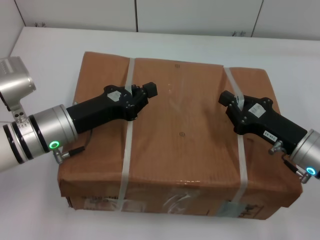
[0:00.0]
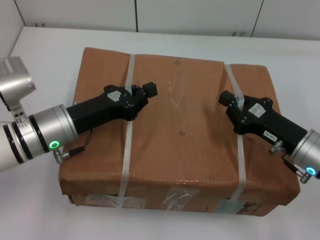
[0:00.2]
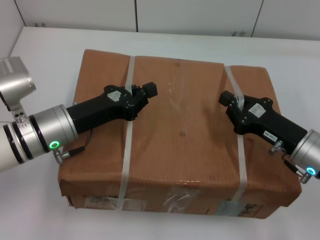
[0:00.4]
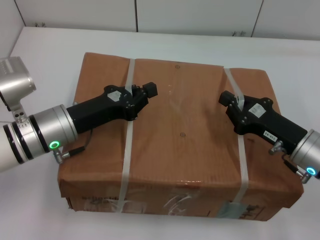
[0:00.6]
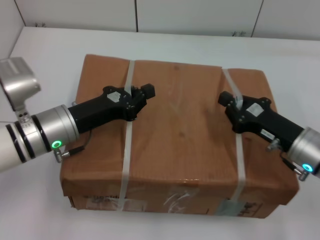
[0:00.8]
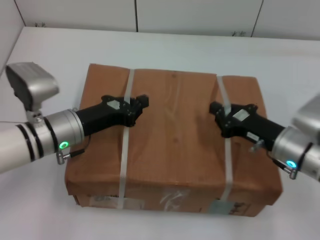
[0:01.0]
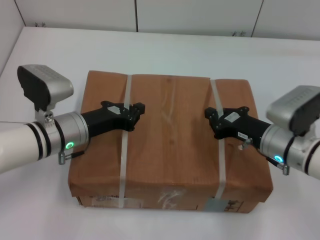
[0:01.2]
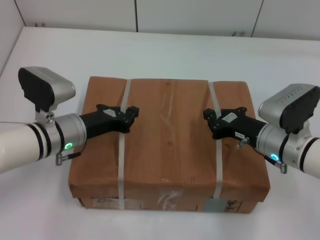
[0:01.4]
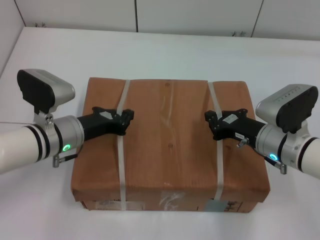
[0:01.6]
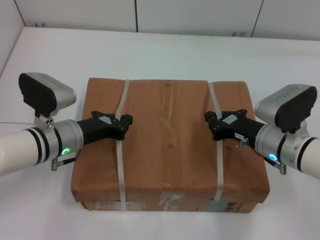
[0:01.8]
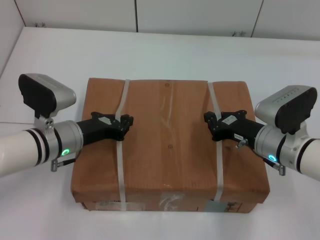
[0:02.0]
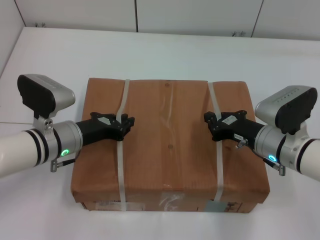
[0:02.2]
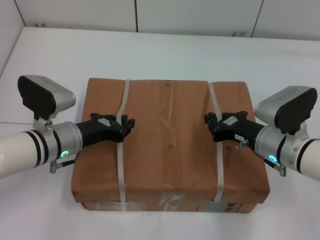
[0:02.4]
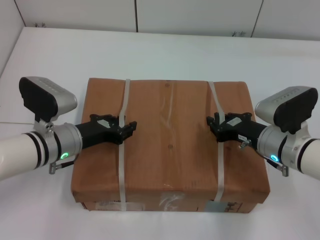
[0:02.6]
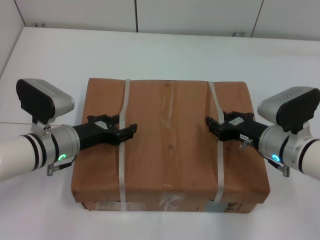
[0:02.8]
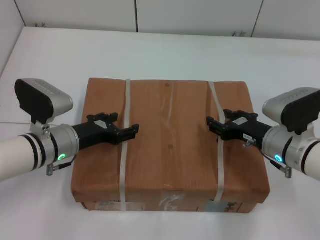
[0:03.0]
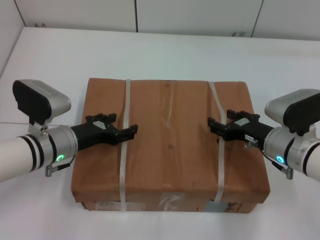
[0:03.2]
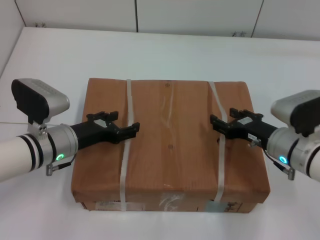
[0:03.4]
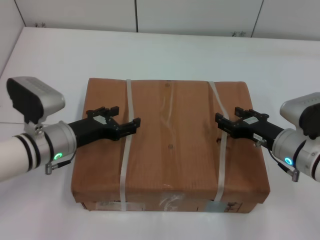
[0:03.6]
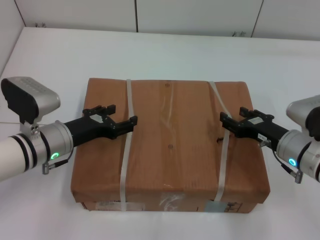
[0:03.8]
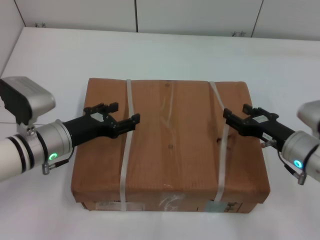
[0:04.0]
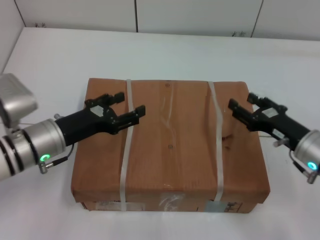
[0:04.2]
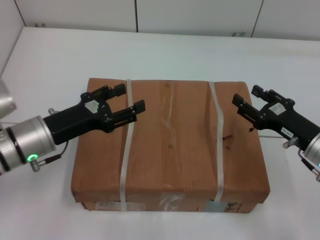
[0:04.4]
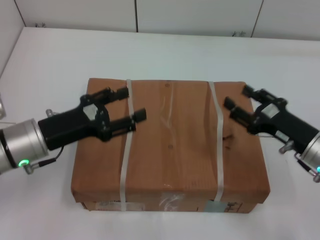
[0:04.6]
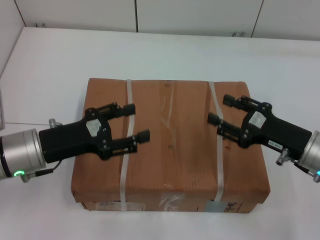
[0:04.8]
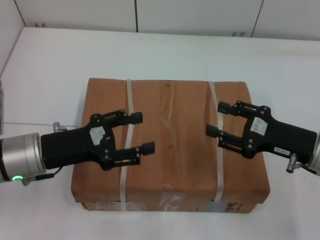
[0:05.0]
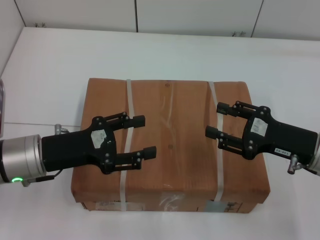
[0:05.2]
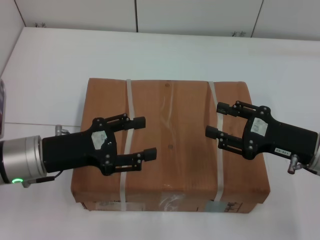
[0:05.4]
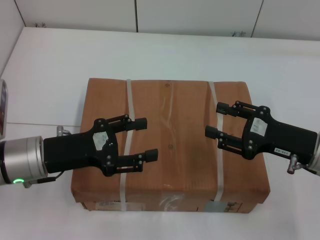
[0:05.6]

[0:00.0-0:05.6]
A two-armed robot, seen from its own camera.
Task of the whole recording: place the box on the table with both arms.
Step, 0:00.0 to 0:01.6: Place the box on the table with left gripper.
Step, 0:00.0 to 0:01.6: Place the box on the table with right gripper.
Step, 0:01.8 to 0:02.6: Loosen the box on the table with left gripper.
Step, 0:01.8 to 0:02.6: Loosen the box on the table with right gripper.
0:00.0 to 0:01.4: The right gripper ends up roughly 5 cm from where it was. The left gripper moves some 5 cm.
0:01.4 to 0:02.8: The left gripper opens up.
0:02.8 to 0:04.2: The right gripper moves about 5 cm, and opens its fingers. The left gripper opens.
